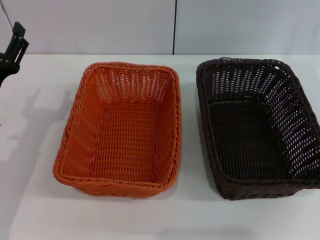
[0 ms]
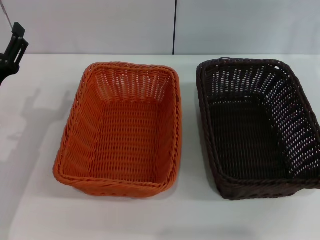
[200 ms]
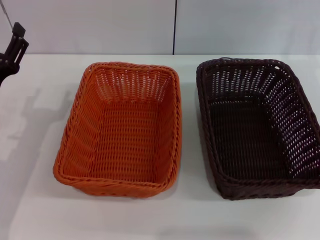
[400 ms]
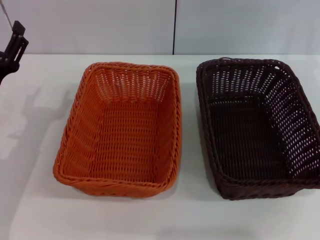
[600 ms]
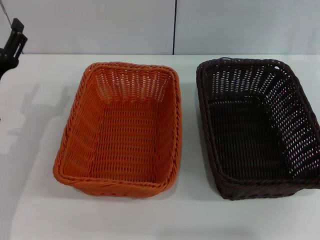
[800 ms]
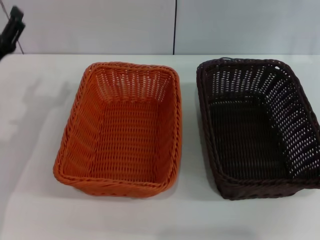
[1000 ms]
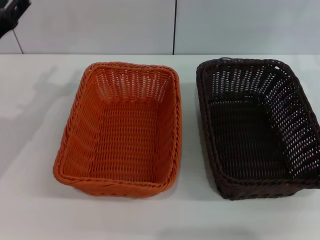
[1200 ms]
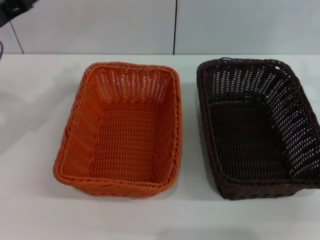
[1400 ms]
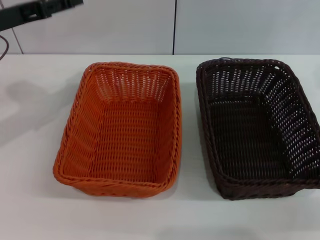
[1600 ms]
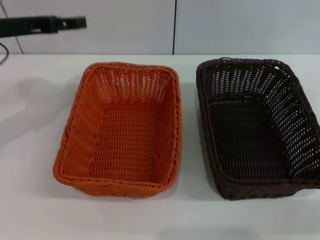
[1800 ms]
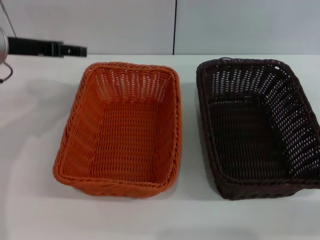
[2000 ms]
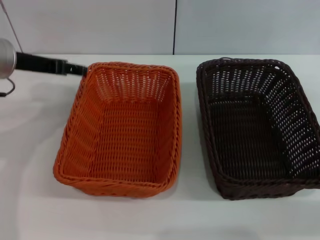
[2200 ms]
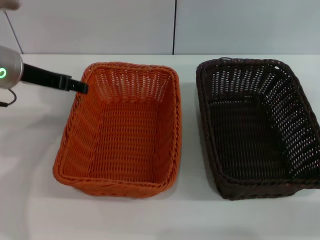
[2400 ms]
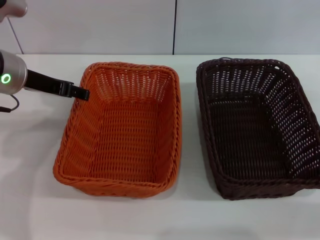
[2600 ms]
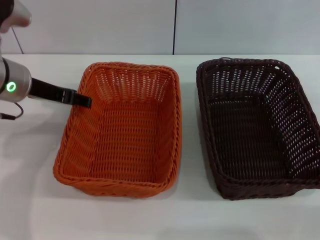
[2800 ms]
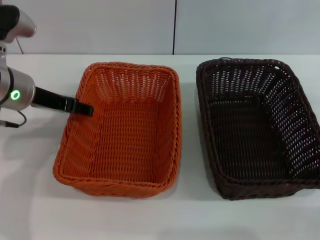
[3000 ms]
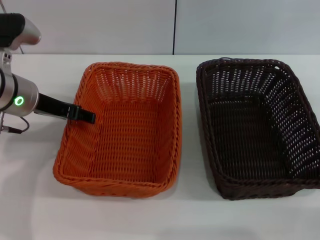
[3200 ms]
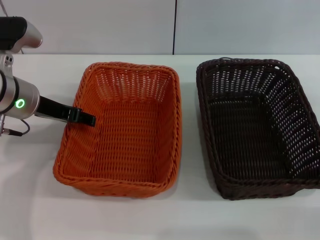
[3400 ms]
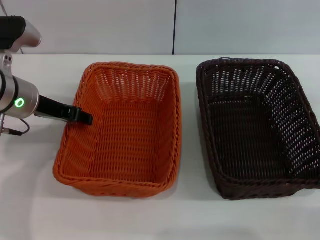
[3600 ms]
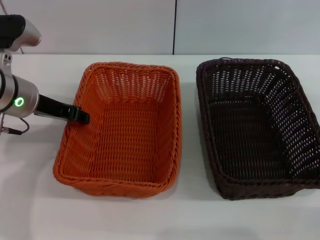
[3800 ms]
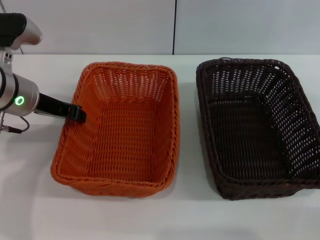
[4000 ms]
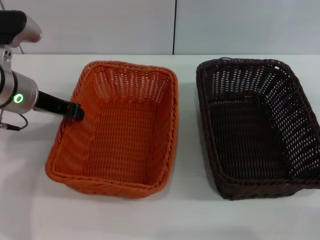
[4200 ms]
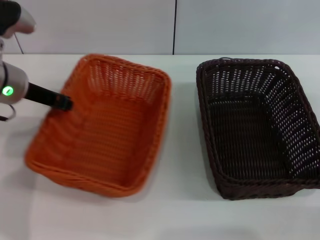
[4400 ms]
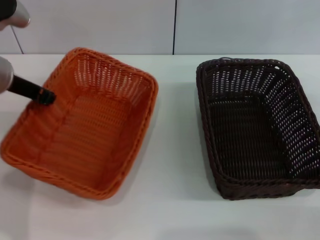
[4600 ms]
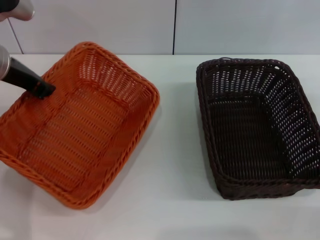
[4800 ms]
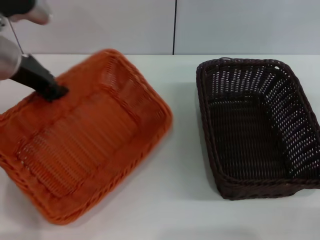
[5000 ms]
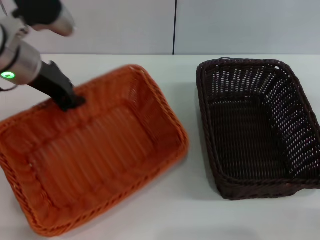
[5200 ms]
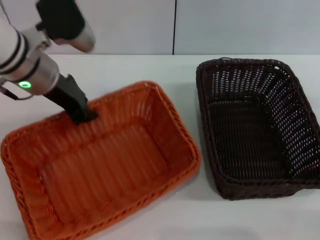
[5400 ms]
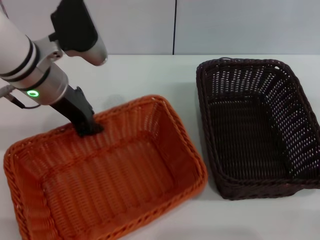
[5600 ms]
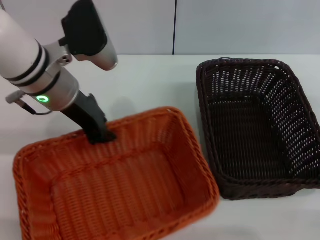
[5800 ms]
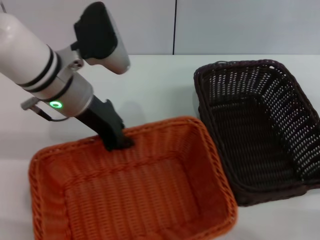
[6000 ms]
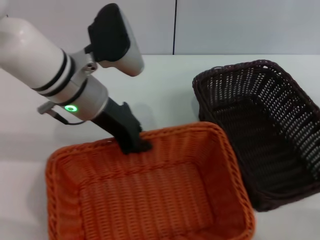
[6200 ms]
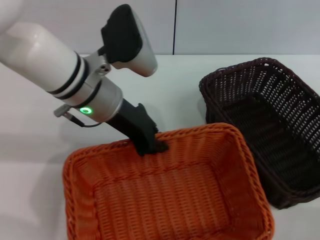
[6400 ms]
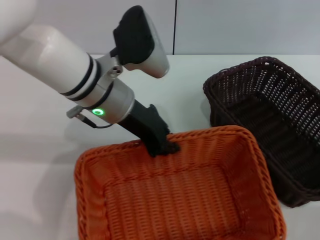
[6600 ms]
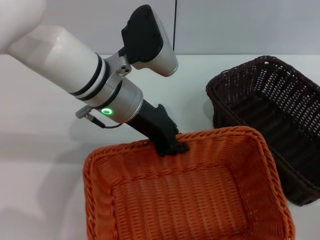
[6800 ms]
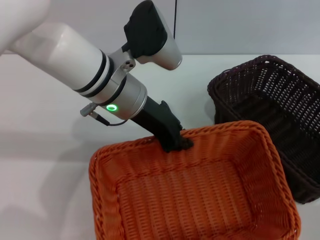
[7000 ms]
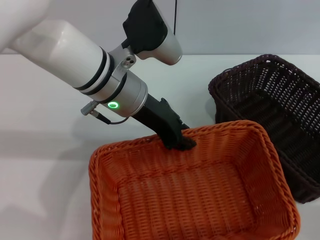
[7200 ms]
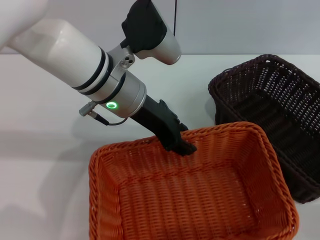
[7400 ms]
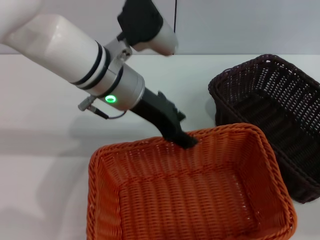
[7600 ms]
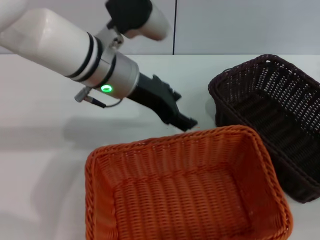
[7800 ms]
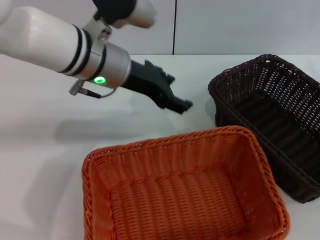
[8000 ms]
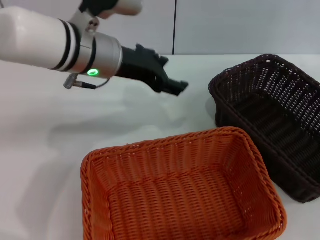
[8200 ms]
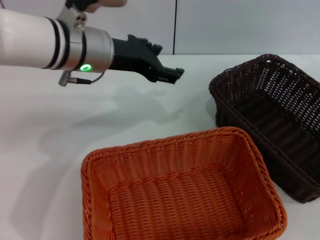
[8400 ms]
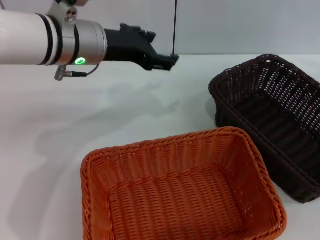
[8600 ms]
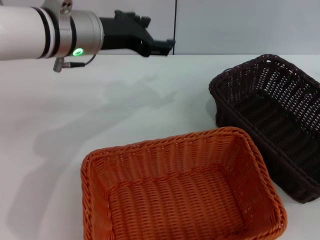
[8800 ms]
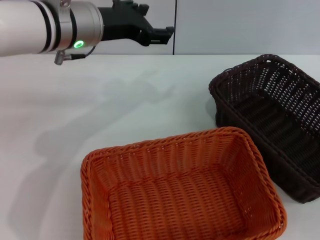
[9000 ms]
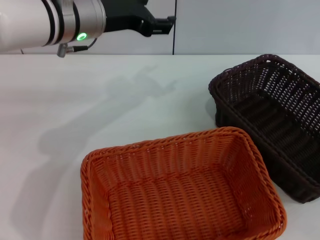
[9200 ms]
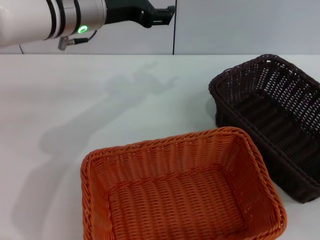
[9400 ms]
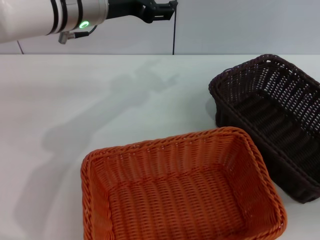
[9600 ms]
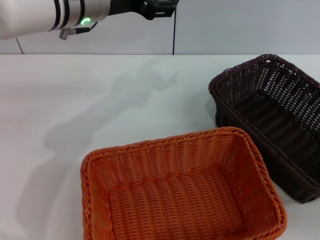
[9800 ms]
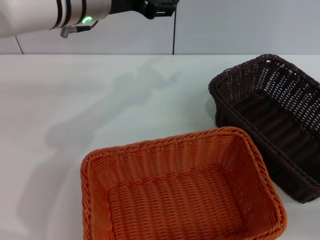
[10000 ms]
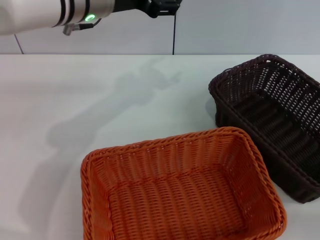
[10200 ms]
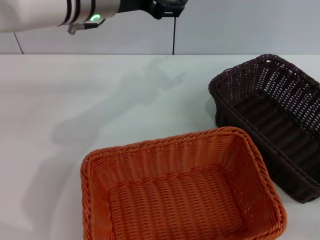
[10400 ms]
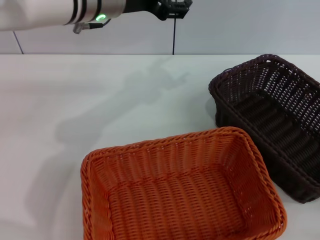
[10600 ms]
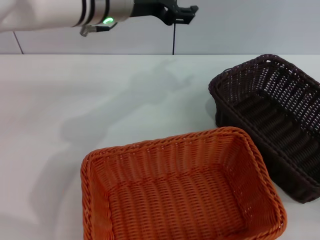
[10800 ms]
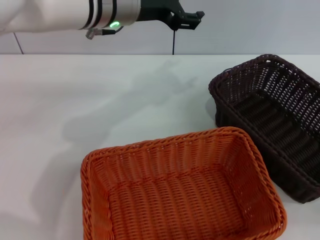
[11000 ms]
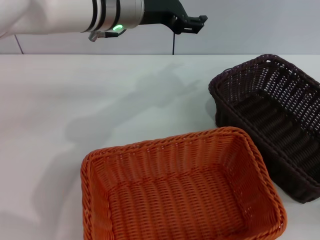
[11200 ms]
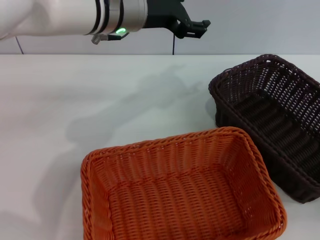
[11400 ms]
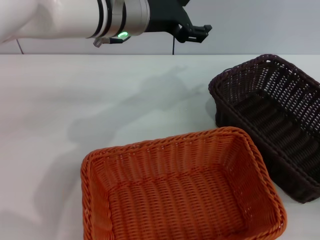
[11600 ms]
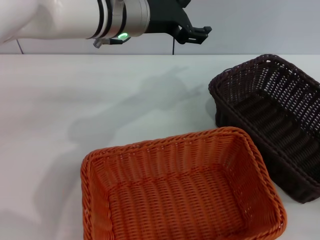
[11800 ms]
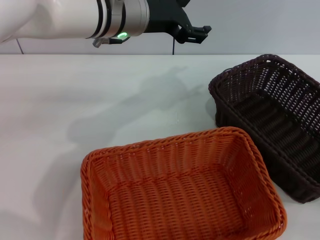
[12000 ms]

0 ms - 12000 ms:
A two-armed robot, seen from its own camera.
Step, 0 ms - 4600 ms: Pick up the light basket with the left gripper.
Step, 4800 ms - 8000 ms: Place the light basket in the center of view with the left gripper.
0 ms - 1600 ms: The right gripper shifts some 5 cm to the right and backward. The left gripper is displaced upward and forward by some 15 cm.
1600 ms - 3000 ms: The left gripper travels to the right by roughly 5 cm.
3000 ms - 4400 ms: The left gripper closes its fingers.
4400 ms - 6000 ms: The left gripper shifts roughly 10 cm to the right.
6000 ms - 7600 ms: The left gripper heads to the right, covering some 5 cm, and opens its fingers.
7600 ms - 9000 ms: The right gripper travels upward, backward and to the right by roughly 15 cm. The left gripper heads to the left, covering roughly 5 cm, and opens its fingers.
9000 ms - 10400 ms: The right gripper heads backward and downward, covering some 20 cm.
10400 ms - 12000 ms: The right gripper goes approximately 5 cm downward.

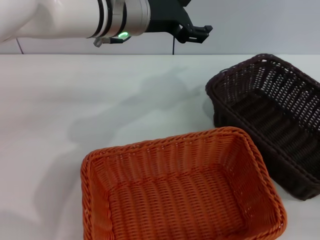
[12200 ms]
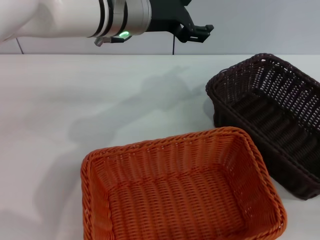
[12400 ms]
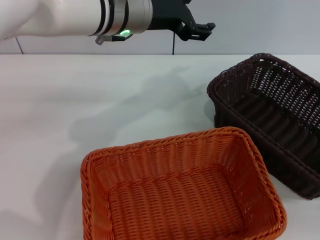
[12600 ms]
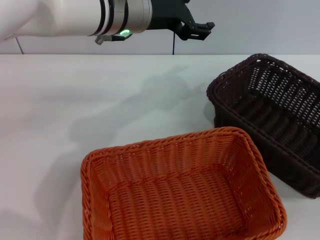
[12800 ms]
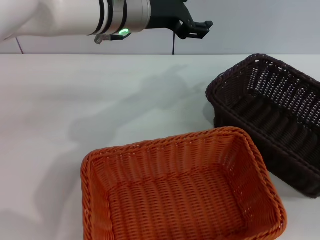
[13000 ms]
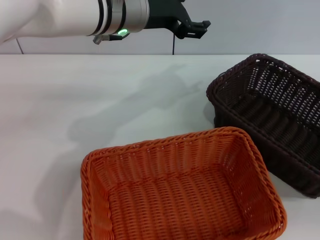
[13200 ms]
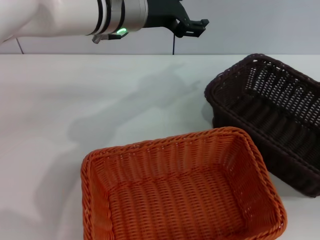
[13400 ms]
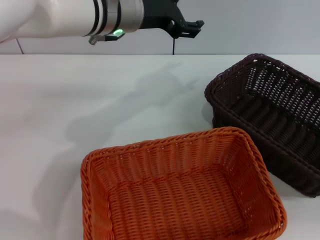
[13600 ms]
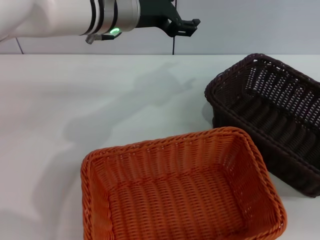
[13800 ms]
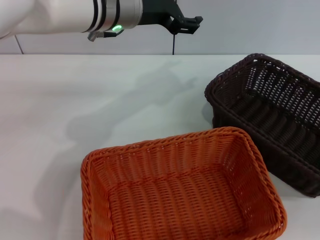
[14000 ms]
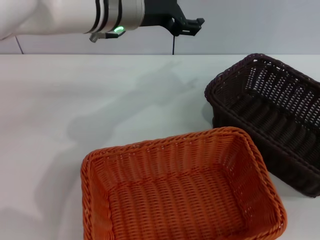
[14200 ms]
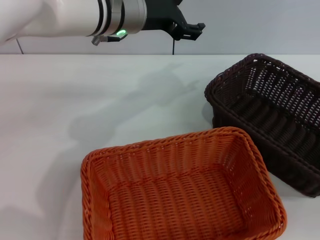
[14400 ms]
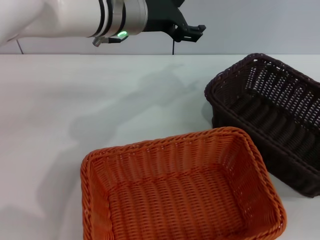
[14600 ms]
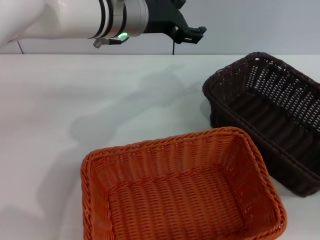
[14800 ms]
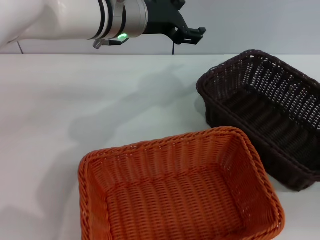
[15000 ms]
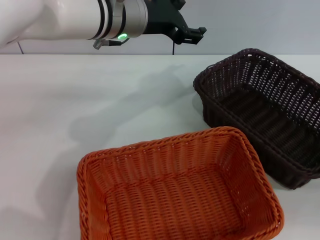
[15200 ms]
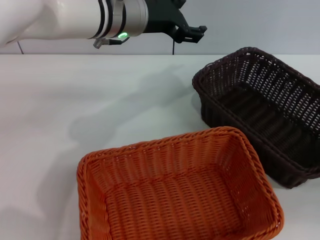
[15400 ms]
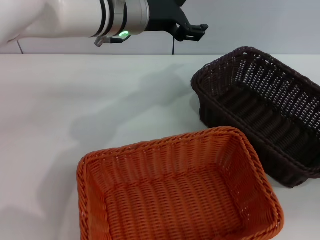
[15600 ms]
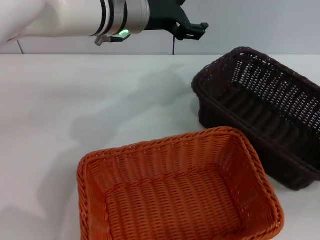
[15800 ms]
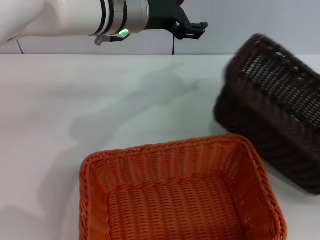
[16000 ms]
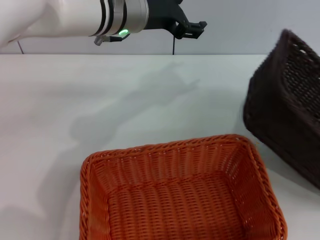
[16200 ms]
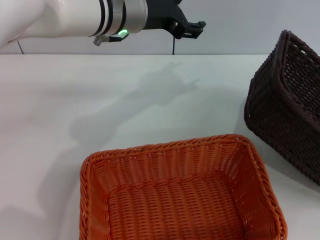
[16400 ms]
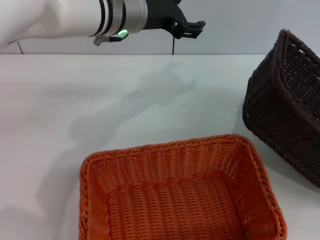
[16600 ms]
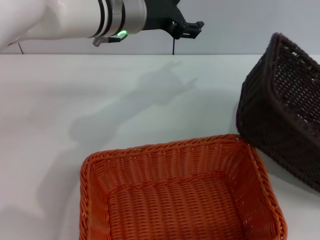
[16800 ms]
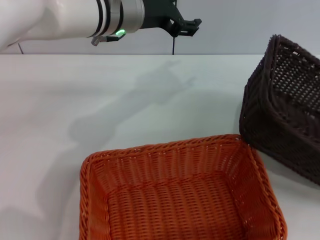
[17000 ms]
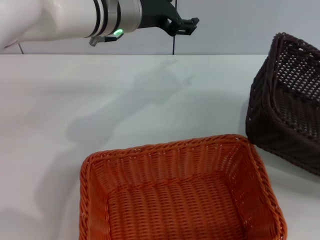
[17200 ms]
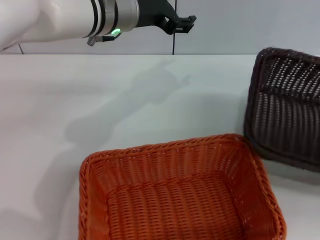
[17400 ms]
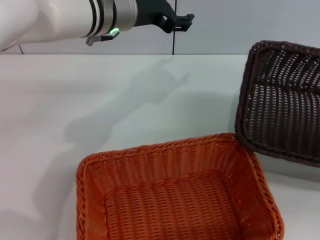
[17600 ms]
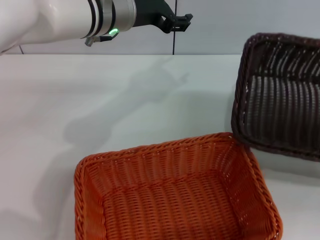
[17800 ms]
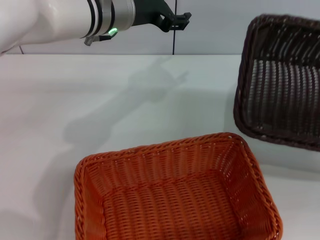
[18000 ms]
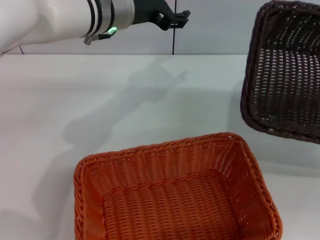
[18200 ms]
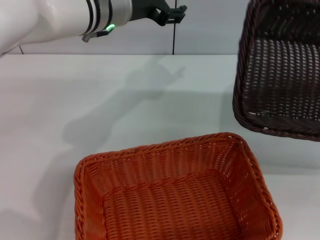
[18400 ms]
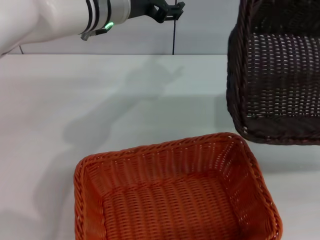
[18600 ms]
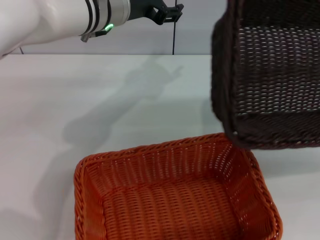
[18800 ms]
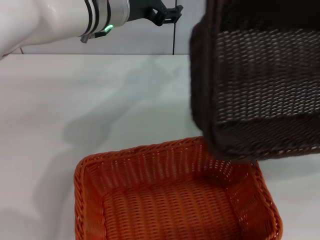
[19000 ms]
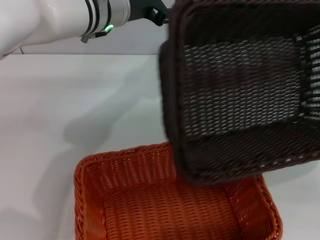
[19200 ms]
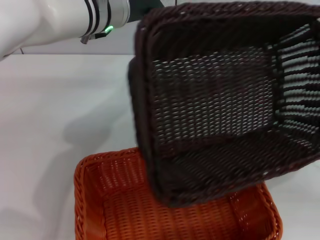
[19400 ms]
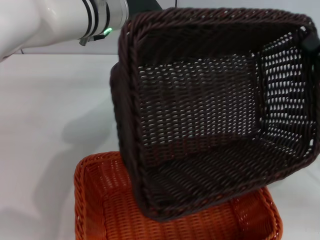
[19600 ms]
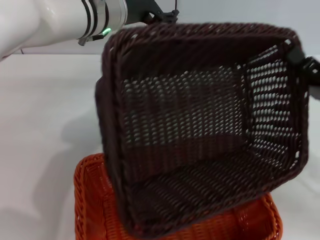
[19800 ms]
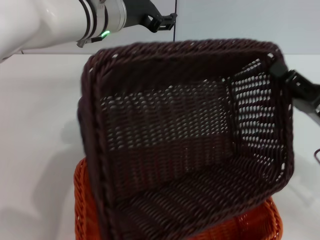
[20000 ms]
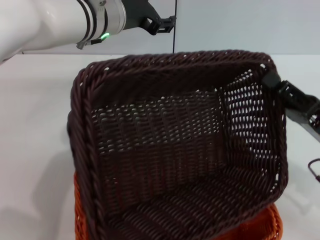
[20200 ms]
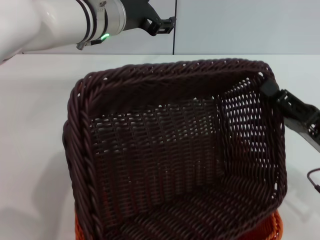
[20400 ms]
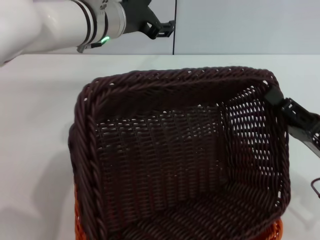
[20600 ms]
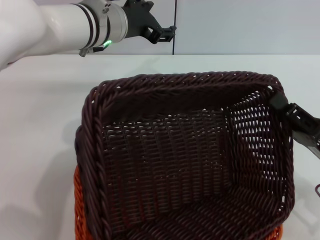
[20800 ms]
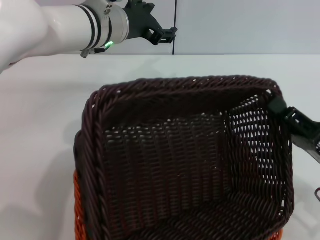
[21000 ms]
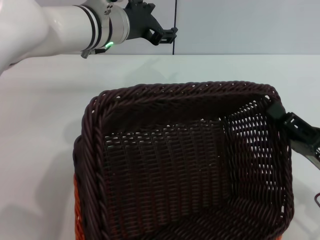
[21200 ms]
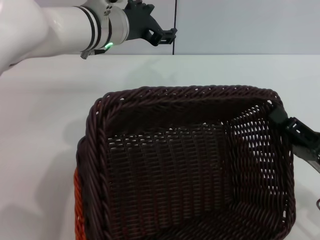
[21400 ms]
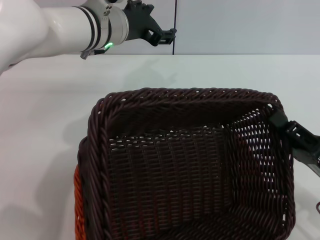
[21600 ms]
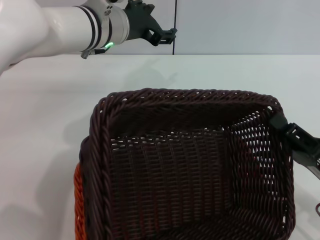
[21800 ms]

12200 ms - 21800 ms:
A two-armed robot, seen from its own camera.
Step, 12200 ms - 16000 ms: Pick up the dark basket with the right gripper.
12200 ms - 13800 ms: The right gripper travels forward by approximately 5 cm.
15400 ms - 17000 ms: The right gripper closes.
17000 ms - 18600 ms: The right gripper shifts about 5 cm upward.
18600 ms - 20200 ms: The right gripper shifts roughly 20 cm to the left and downward.
20200 ms - 21800 ms: The right gripper shifts by some 5 cm.
